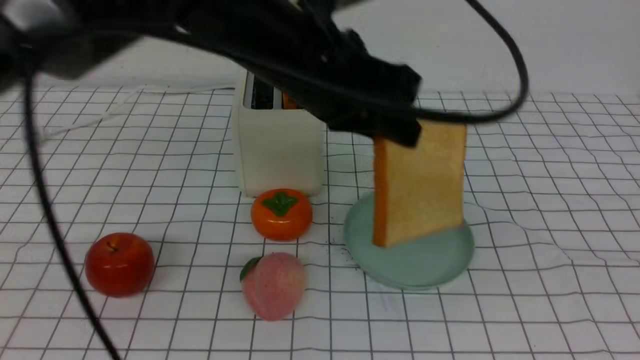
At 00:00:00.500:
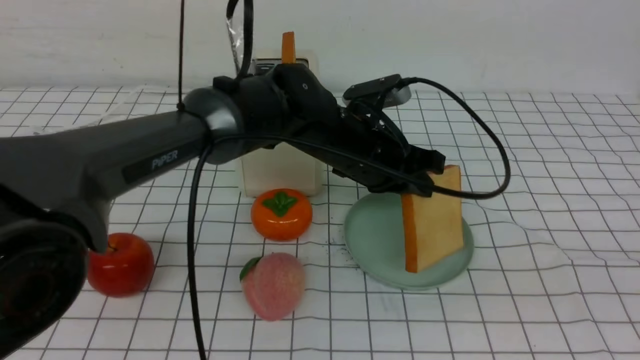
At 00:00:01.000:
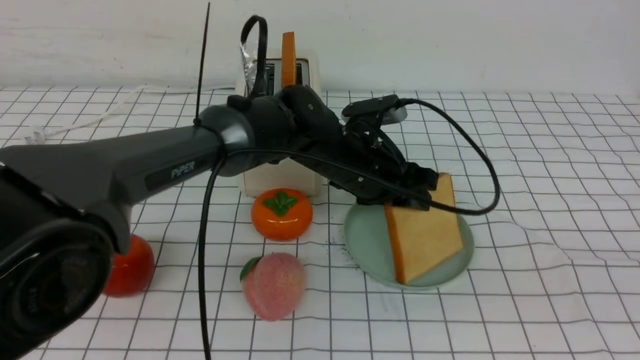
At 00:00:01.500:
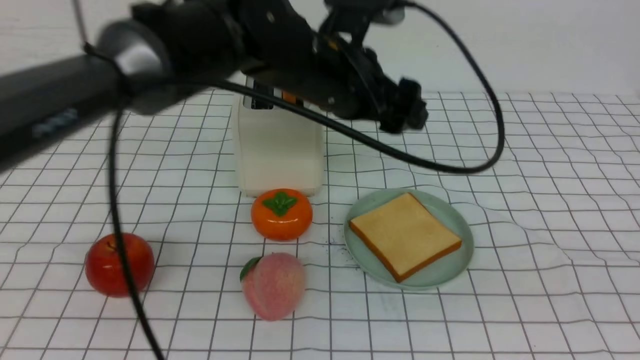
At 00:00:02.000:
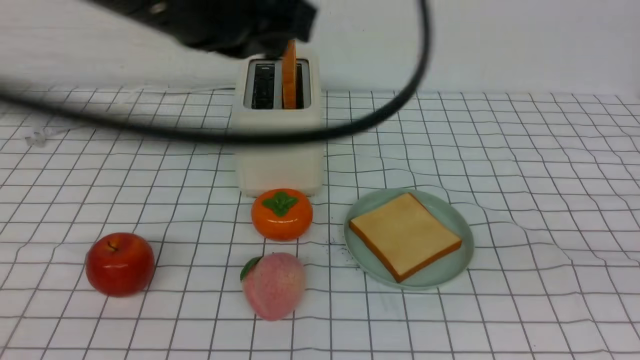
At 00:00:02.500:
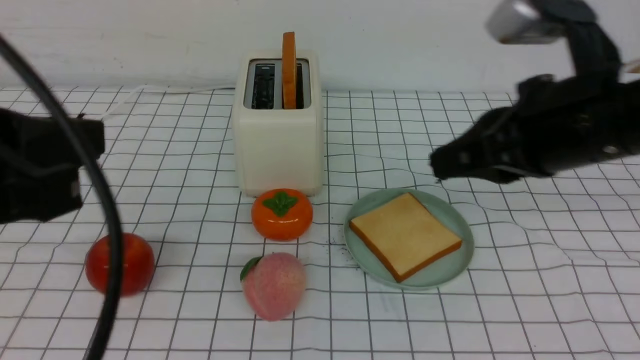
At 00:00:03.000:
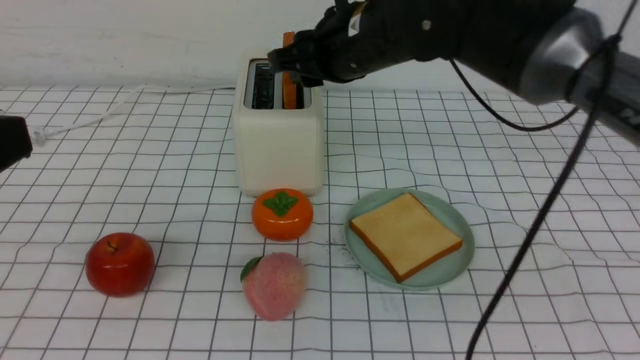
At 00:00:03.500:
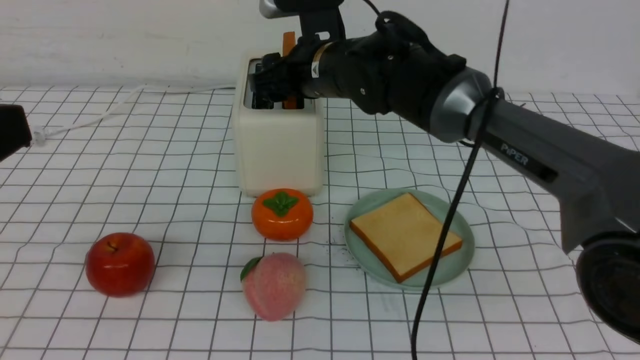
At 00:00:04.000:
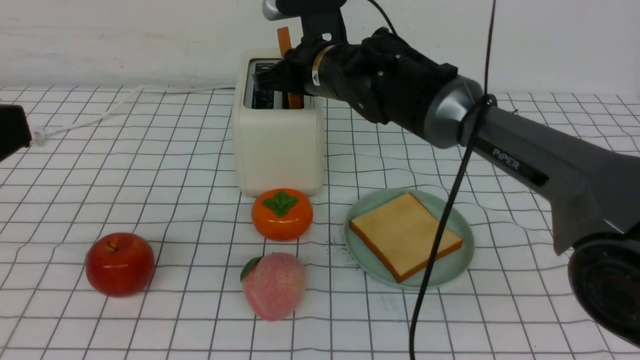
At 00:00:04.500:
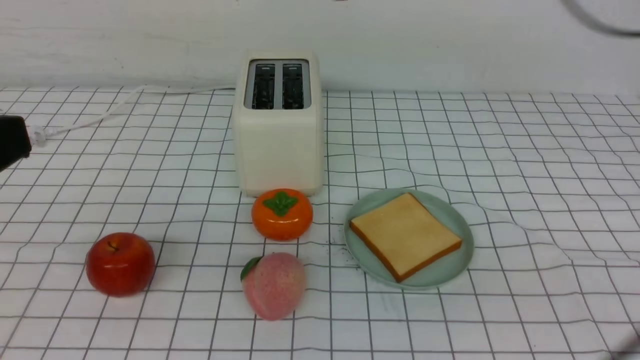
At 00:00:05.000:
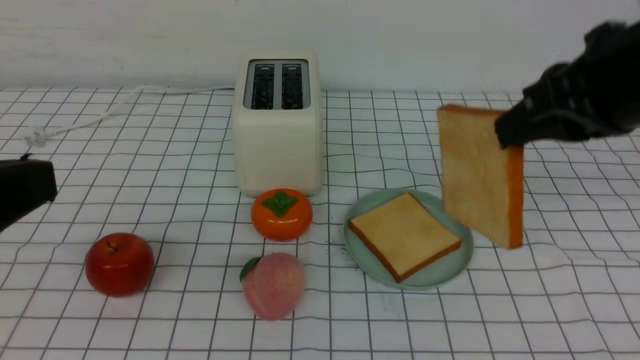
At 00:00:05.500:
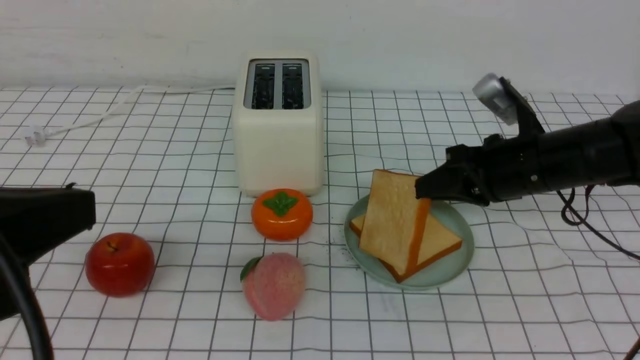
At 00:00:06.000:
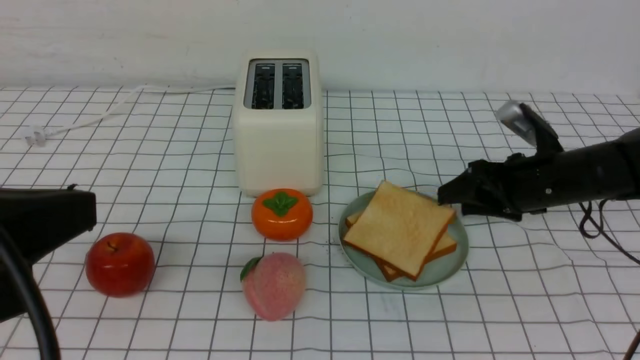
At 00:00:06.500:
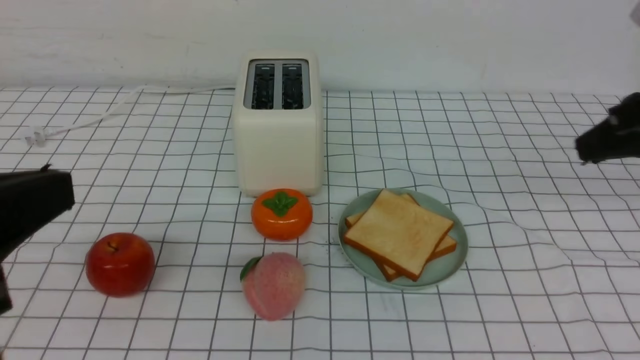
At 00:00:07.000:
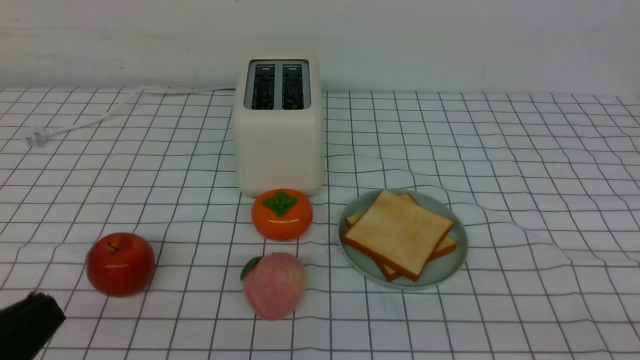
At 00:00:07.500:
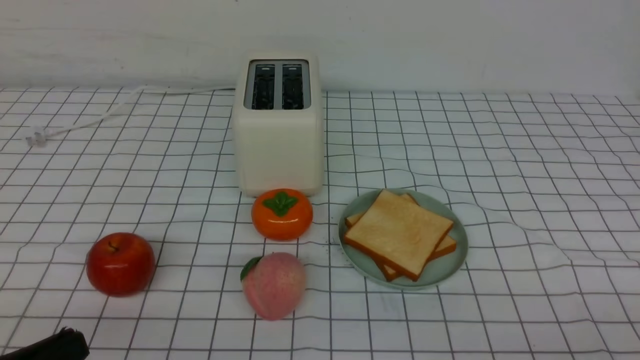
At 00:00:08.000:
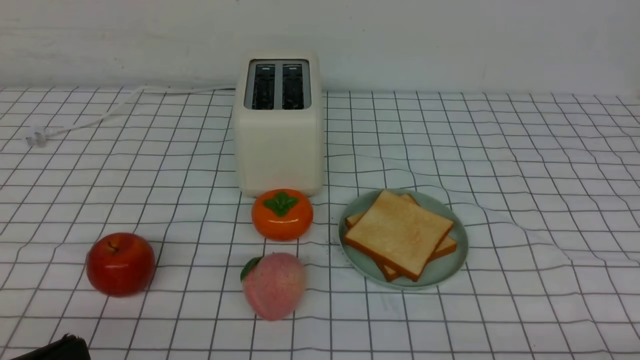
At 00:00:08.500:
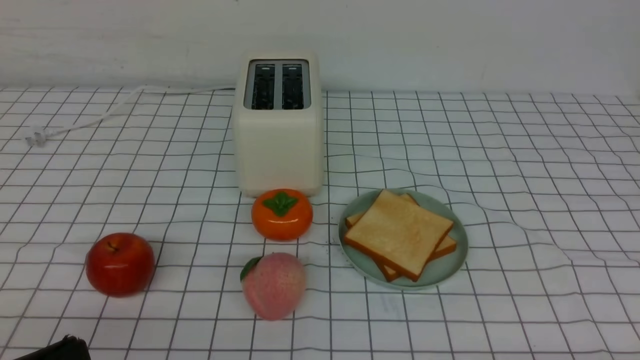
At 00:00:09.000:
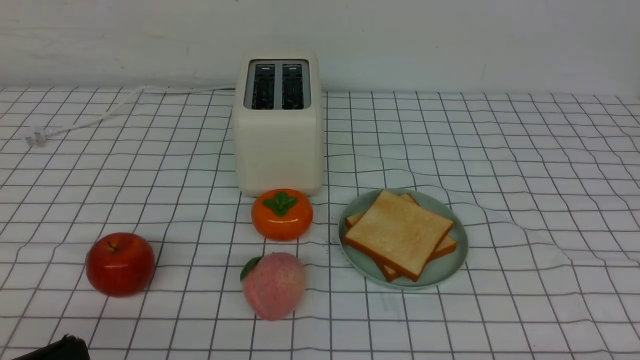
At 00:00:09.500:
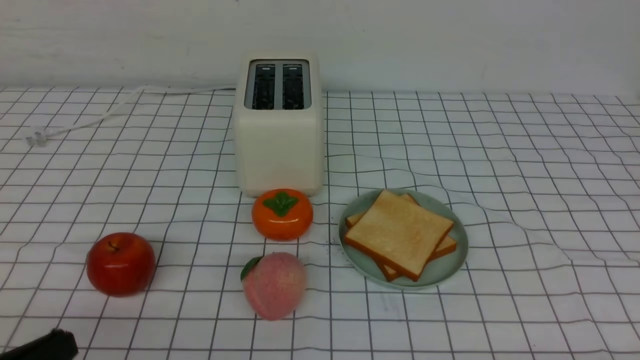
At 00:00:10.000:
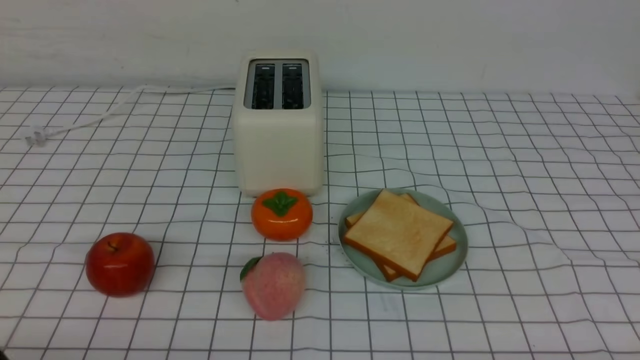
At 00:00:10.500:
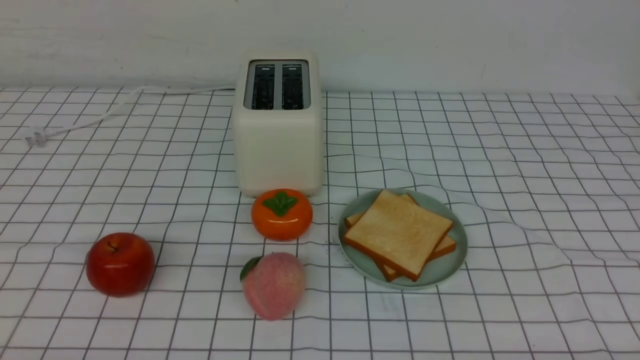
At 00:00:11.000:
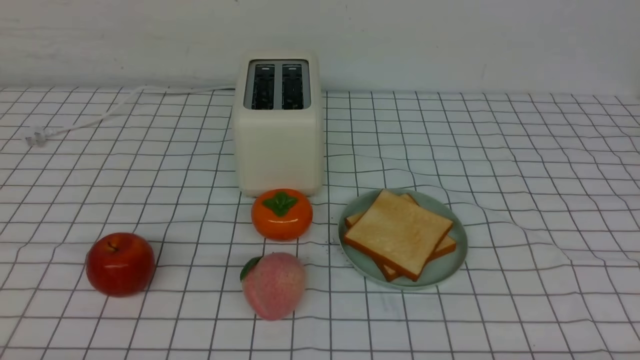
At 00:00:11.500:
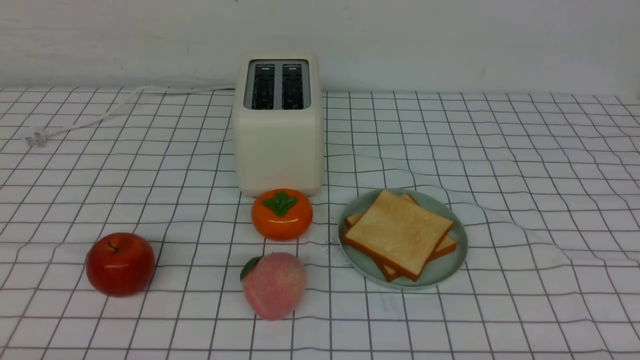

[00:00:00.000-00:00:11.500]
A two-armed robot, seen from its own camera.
Task of the whole recording: take toasted bread from bread machine on white checkered table place on plate.
Step, 00:00:01.500 to 00:00:04.000: use the right arm to take out a slice of bread.
Step, 00:00:04.500 to 00:00:06.000: use the right arm to put a slice of bread into the plate.
00:00:00.000 to 00:00:02.000: The right gripper moves roughly 5 cm. Meanwhile the left gripper shifts approximately 15 cm backward, upward and to the left, and opens, then closes once more.
00:00:02.000 to 00:00:04.000: The right gripper goes approximately 40 cm forward and to the left, and opens, then closes again. Meanwhile the left gripper moves backward and to the left, approximately 20 cm.
00:00:04.000 to 00:00:06.000: The right gripper moves to the right, approximately 25 cm, reaches about 15 cm upward, then returns, and opens.
00:00:06.000 to 00:00:07.500: The left gripper is displaced downward by about 15 cm; the right gripper heads backward, covering some 30 cm, and closes its fingers.
00:00:09.500 to 00:00:11.500: The left gripper is displaced downward by roughly 5 cm.
